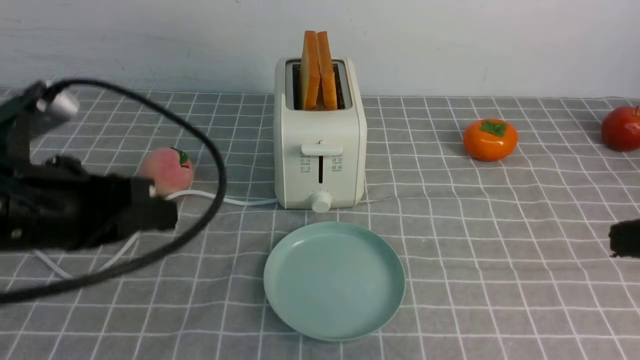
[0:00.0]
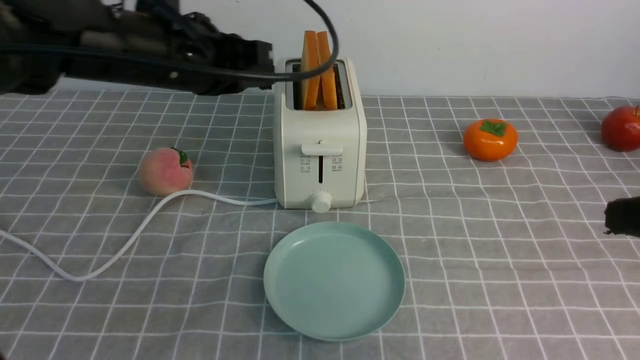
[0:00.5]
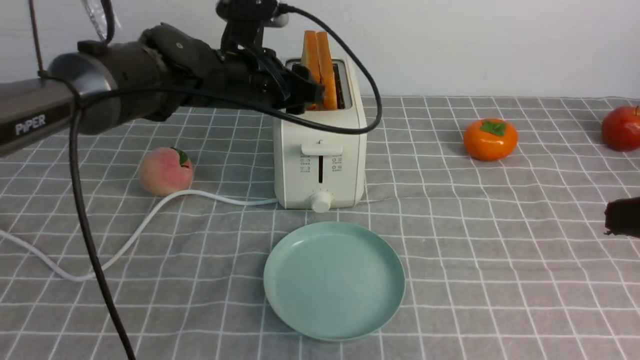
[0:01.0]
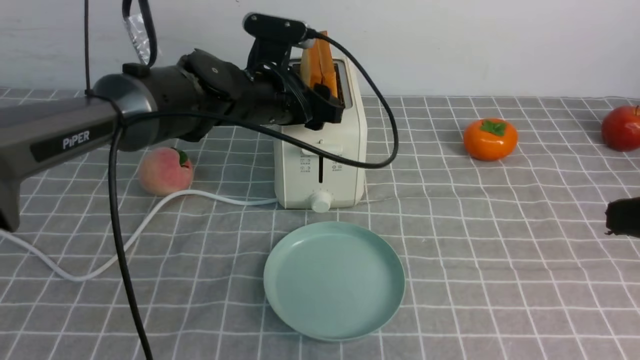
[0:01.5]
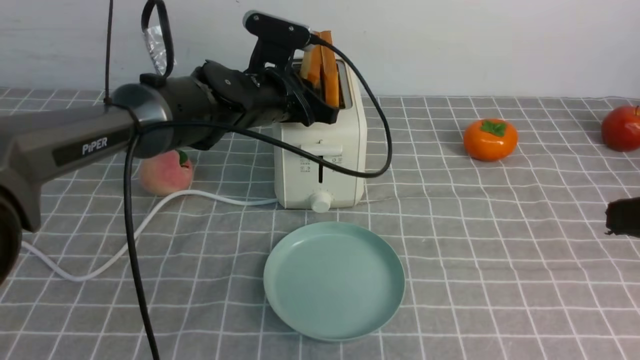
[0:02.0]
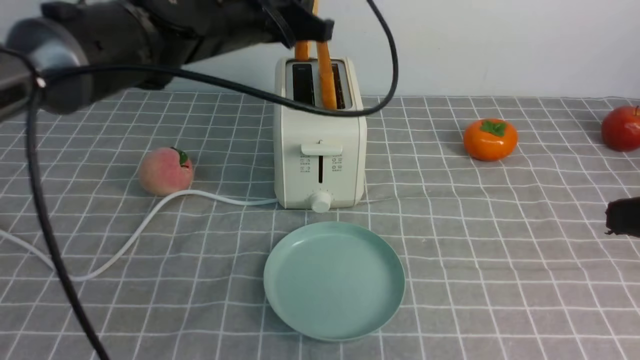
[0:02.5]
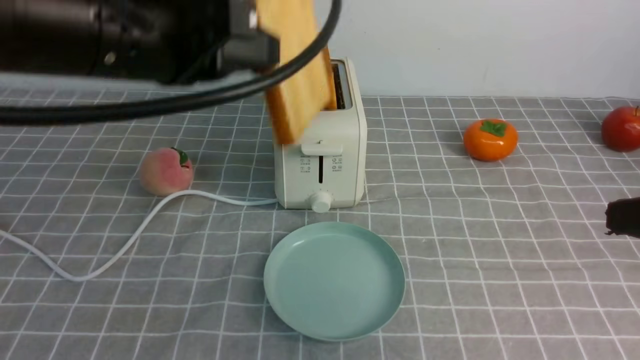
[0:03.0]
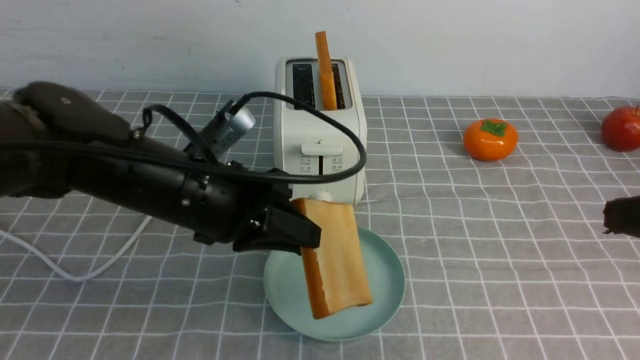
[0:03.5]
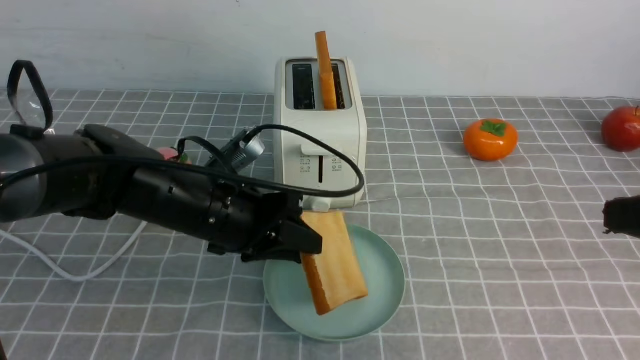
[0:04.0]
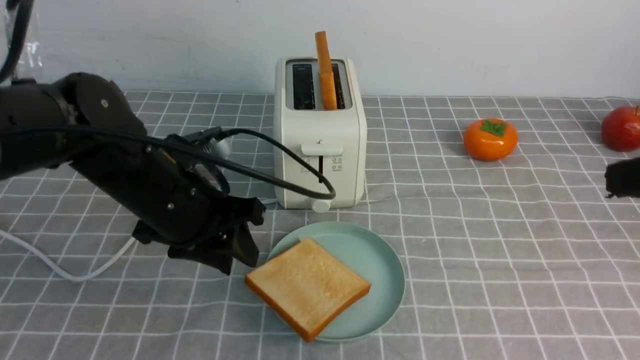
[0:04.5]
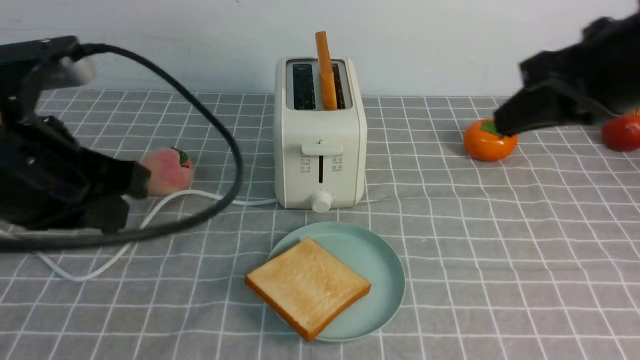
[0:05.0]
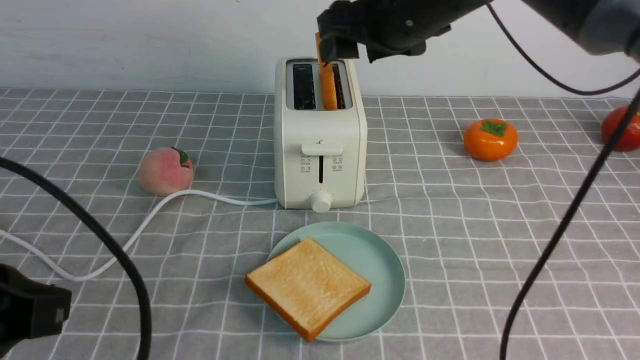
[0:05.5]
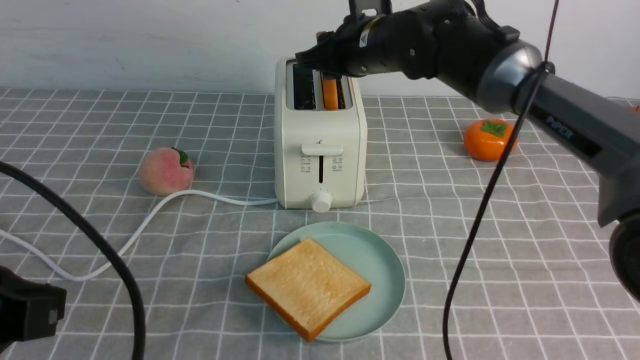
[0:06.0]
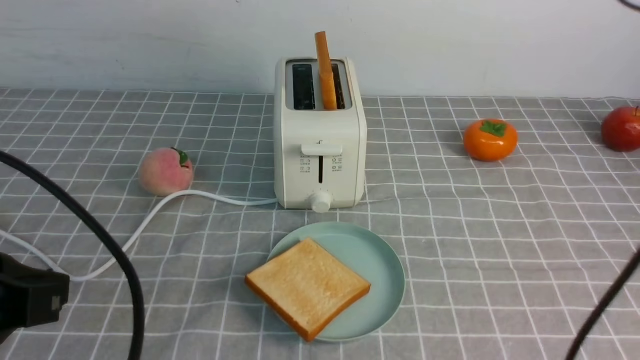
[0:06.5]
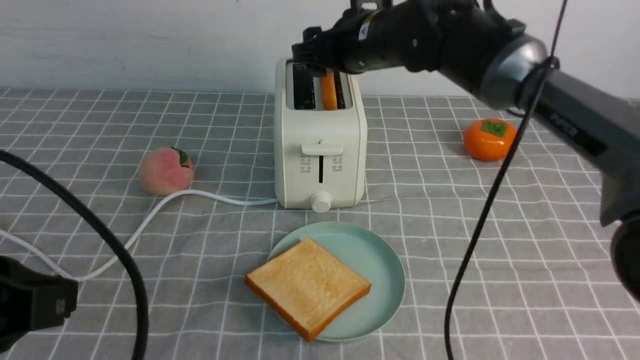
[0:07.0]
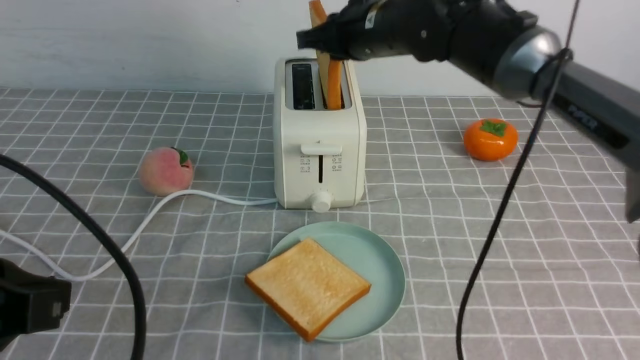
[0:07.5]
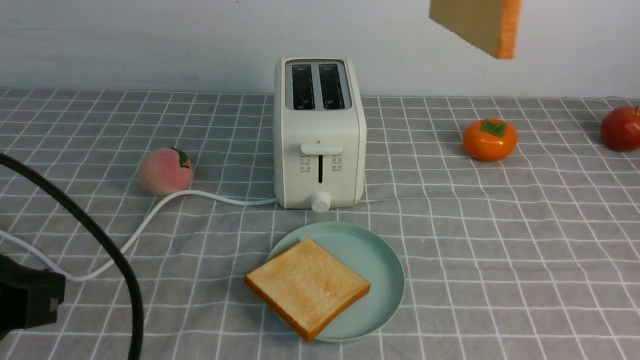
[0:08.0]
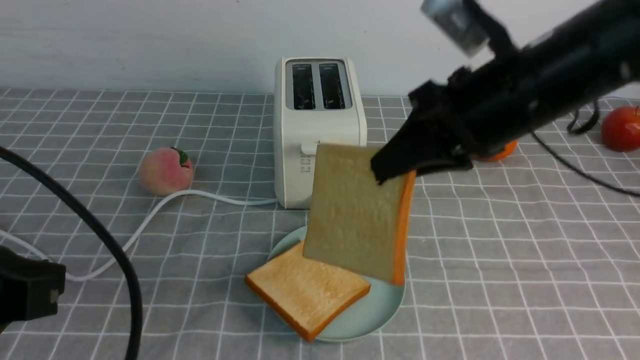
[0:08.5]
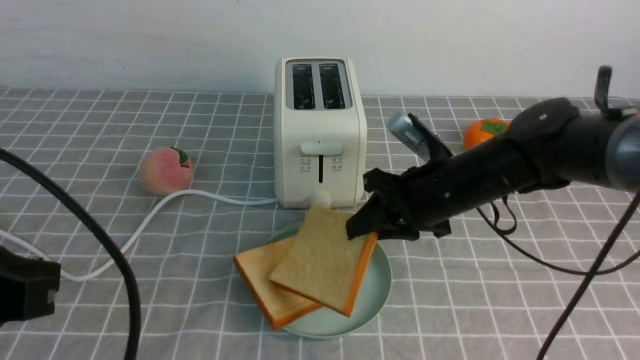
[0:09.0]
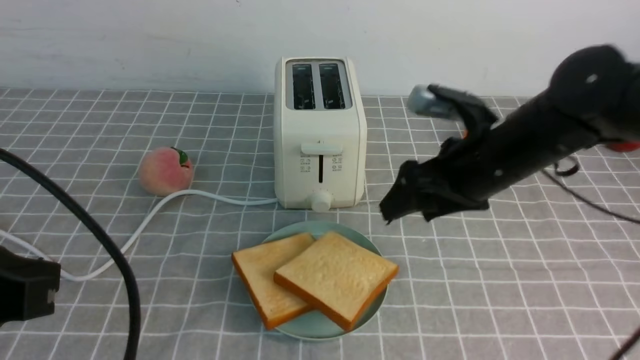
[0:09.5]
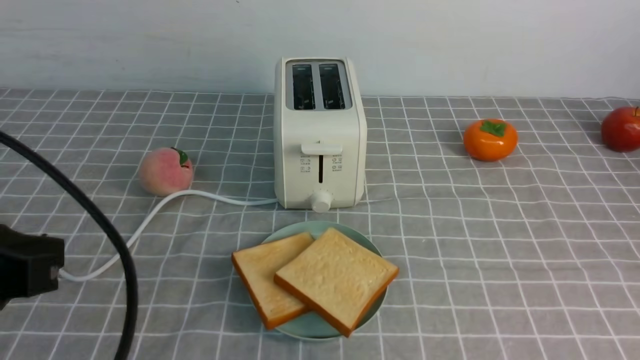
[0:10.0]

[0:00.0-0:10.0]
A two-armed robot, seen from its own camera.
Task of the whole recording: take toasted bread from bread machine on grey coffee table place on plate.
Step, 0:00.0 to 0:02.0: use the left arm to take out a slice of bread.
Step, 0:02.5 to 0:04.5: use the left arm to put a slice of bread into the empty plate.
Step, 0:05.0 to 0:07.5: use the right arm to take out a slice of bread.
Step, 0:08.0 to 0:09.5: use the right arm to put a slice of bread into the plate.
0:00.0 to 0:02.0: The left gripper moves forward and to the right, some 25 cm, and opens and closes again.
0:02.0 to 0:04.0: The left gripper goes some 15 cm backward and downward.
0:04.0 to 0:06.0: The right gripper heads forward and to the left, covering approximately 35 cm, and opens its fingers, while the left gripper is displaced backward, upward and to the left by about 25 cm, and closes.
0:06.0 to 0:08.0: The right gripper goes up and down, some 20 cm each way, reversing 2 times, and opens, then closes again.
0:08.0 to 0:10.0: The right gripper travels backward, to the right and downward by some 25 cm, and opens and closes again.

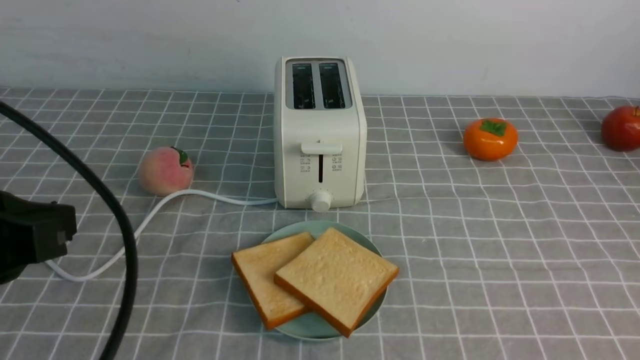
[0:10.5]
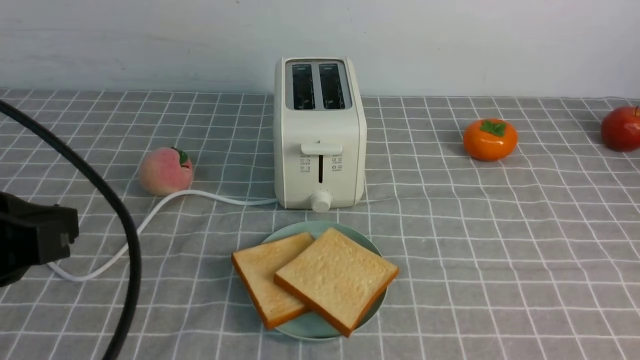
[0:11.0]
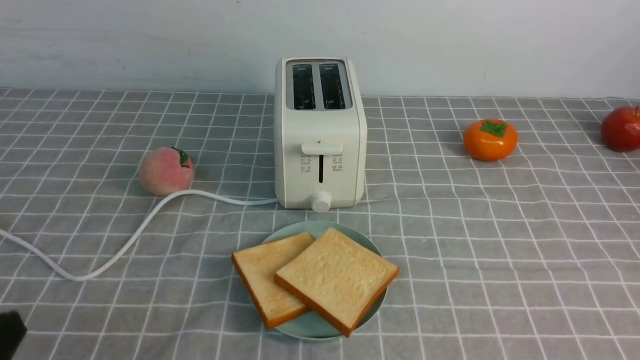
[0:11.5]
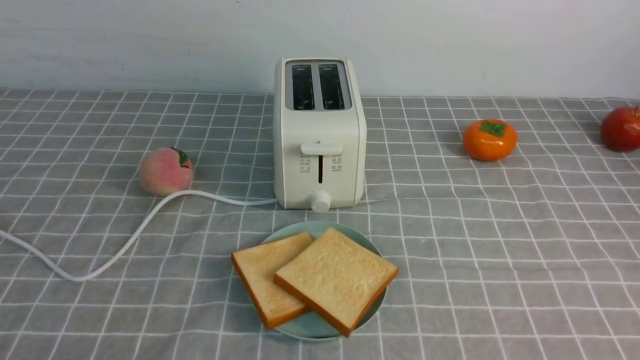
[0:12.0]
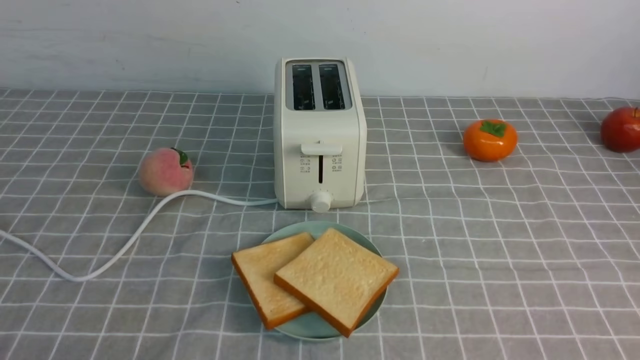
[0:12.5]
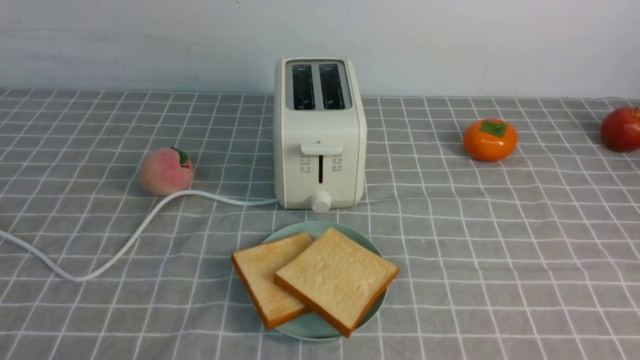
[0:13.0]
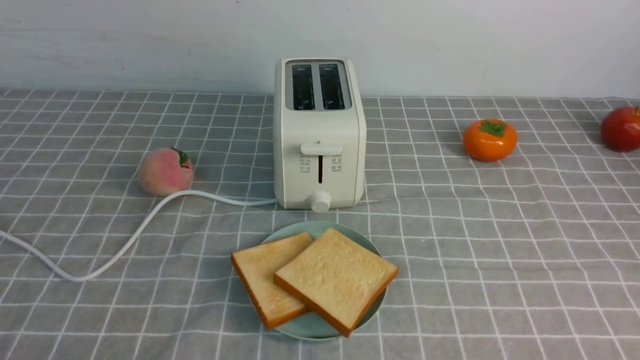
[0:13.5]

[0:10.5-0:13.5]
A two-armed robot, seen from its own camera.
Task of the whole recording: take toasted bread from bread machine on grey coffee table place on plate.
0:10.5 to 0:12.0: The left gripper moves downward and backward, approximately 20 cm.

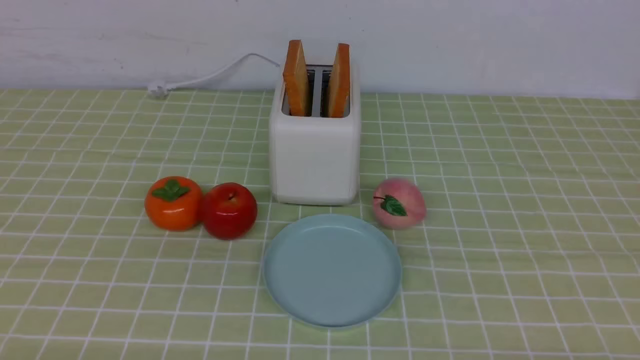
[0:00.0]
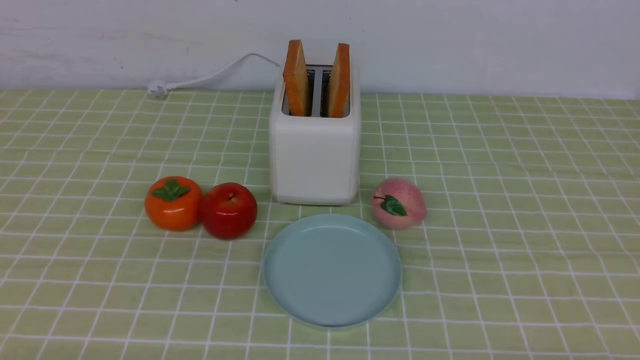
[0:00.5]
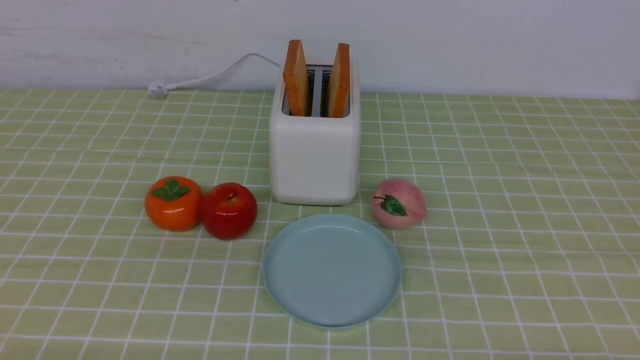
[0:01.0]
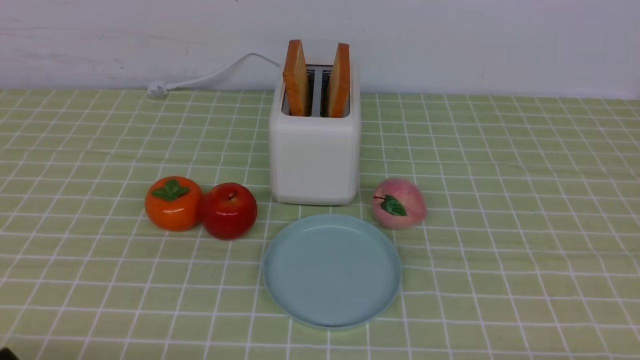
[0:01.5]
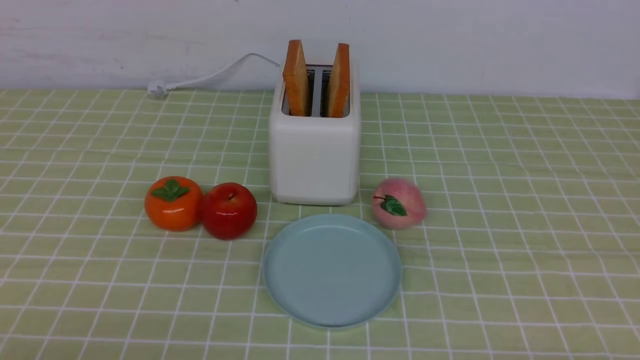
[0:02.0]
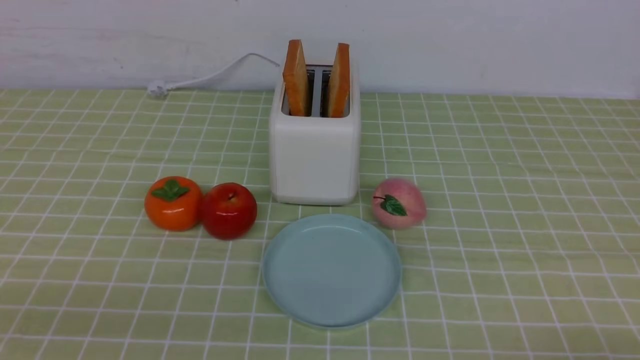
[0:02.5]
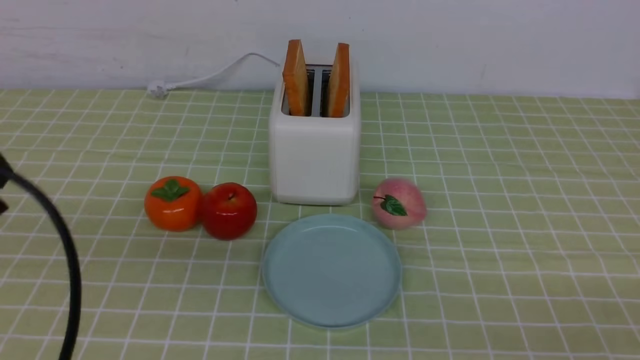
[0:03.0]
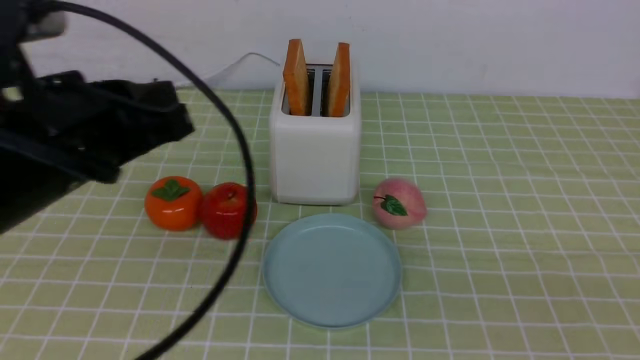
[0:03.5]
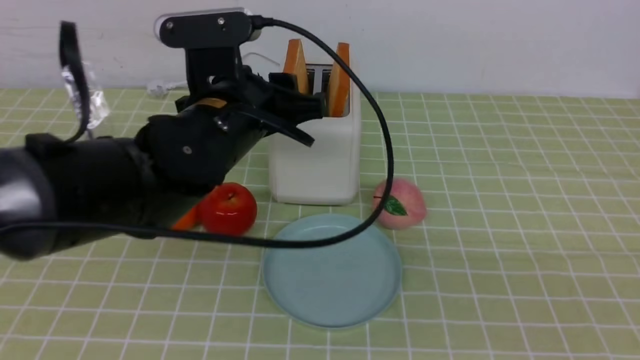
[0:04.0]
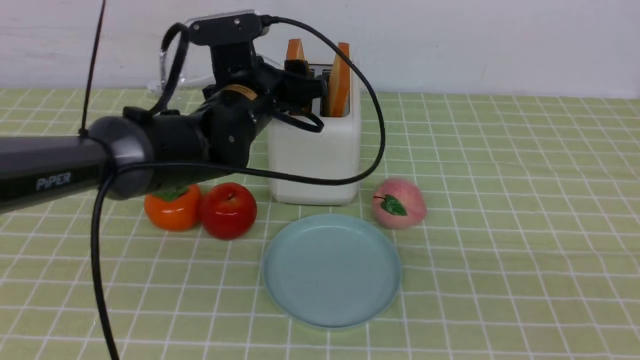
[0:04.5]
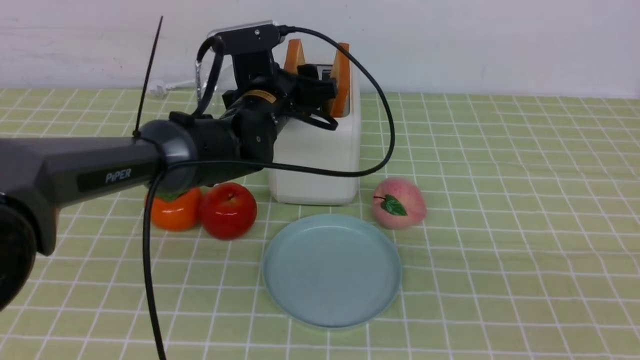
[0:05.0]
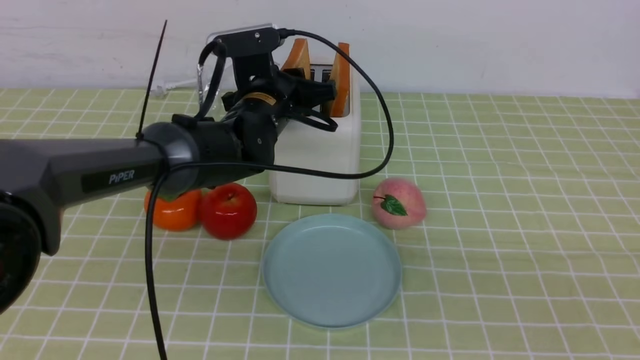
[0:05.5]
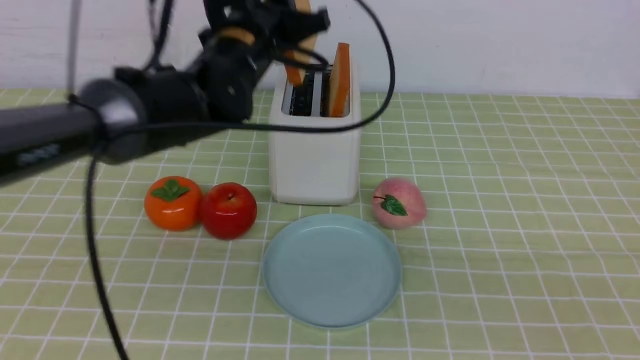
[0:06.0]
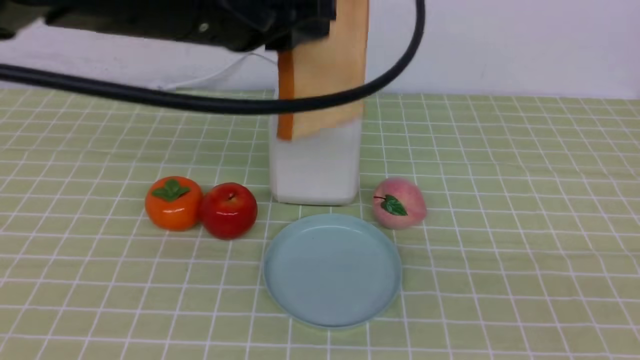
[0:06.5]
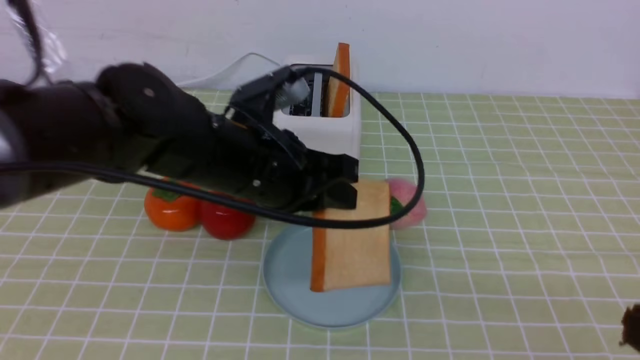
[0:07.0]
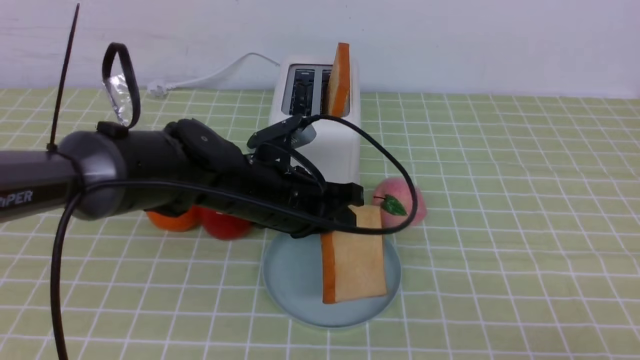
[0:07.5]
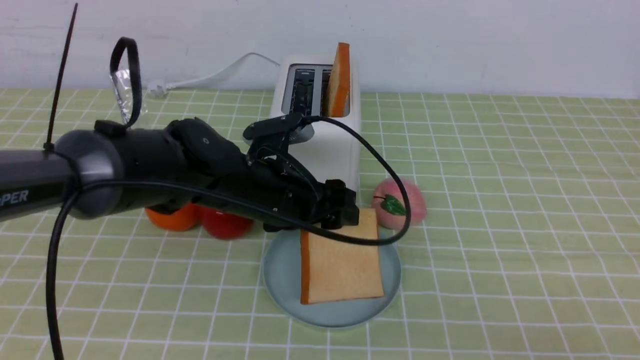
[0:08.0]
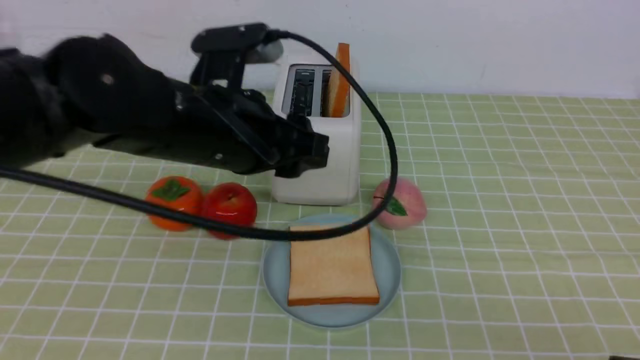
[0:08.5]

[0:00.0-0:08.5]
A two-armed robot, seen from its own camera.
Task of the whole recording: take toasted bread from bread machine on green coffee tablecloth place on plate.
Step, 0:00.0 to 0:06.0: use the left arm to take out a slice of bread.
Step, 0:06.5 to 0:08.0: use the left arm to put a slice of bread into the empty plate.
0:02.0 to 0:04.0: The right gripper heads upward, covering some 15 cm, and closes its fingers; the left gripper travels forward and to the right by approximately 30 cm, and closes, then opens again.
0:04.0 to 0:06.5: The left gripper is displaced upward by approximately 10 cm, and closes up.
0:06.5 to 0:08.5: The left gripper travels downward by some 5 cm, and opens its fingers.
